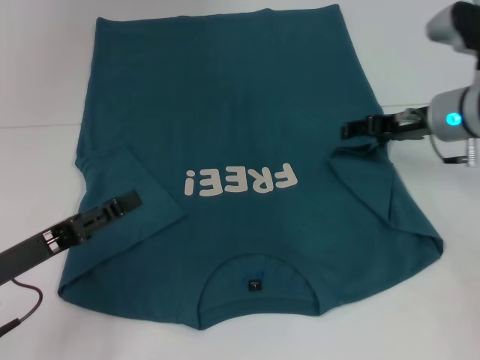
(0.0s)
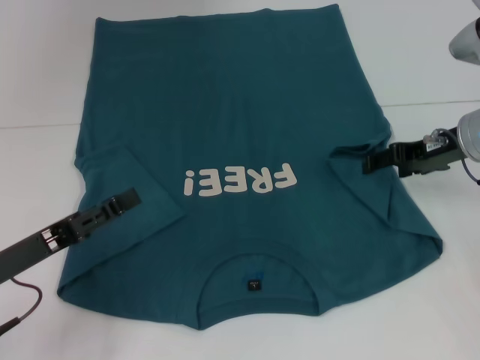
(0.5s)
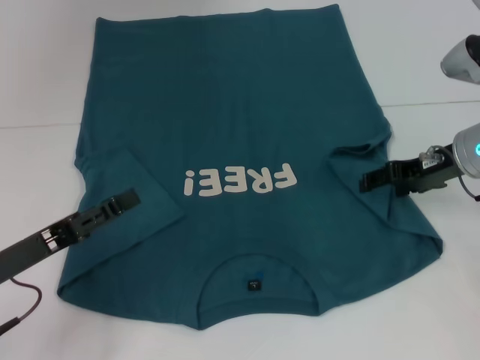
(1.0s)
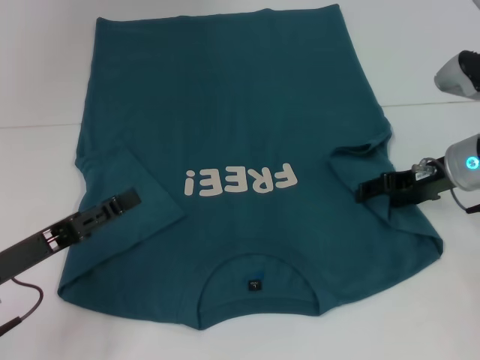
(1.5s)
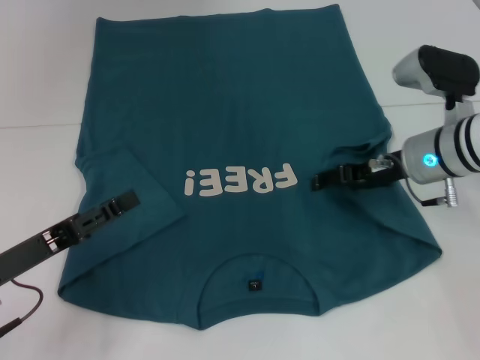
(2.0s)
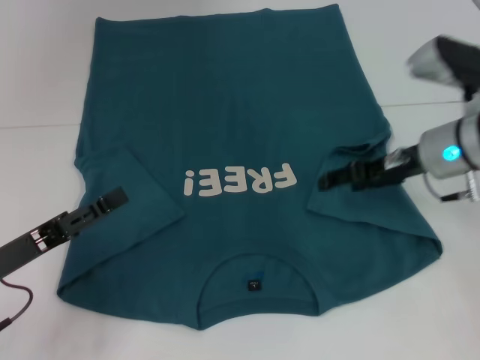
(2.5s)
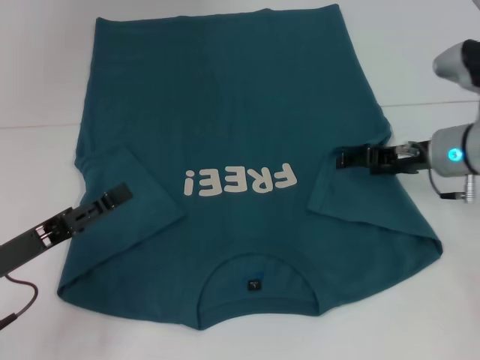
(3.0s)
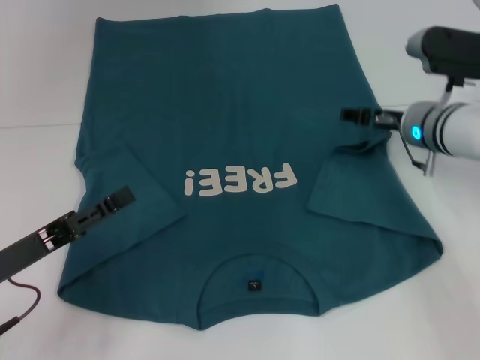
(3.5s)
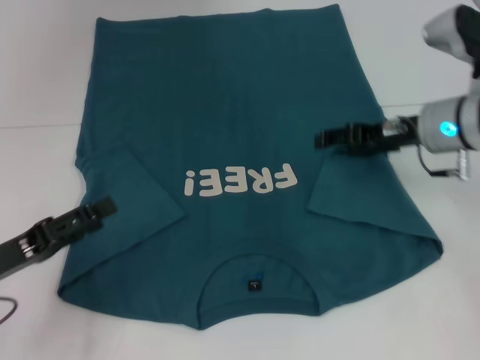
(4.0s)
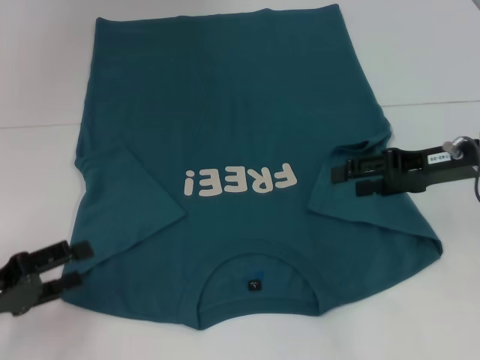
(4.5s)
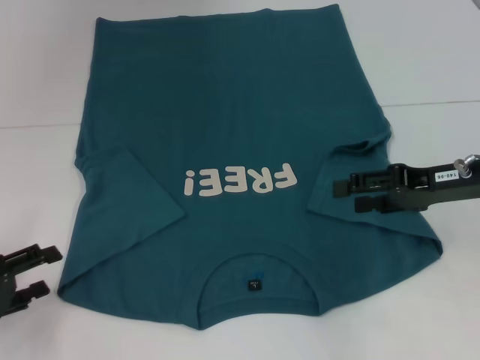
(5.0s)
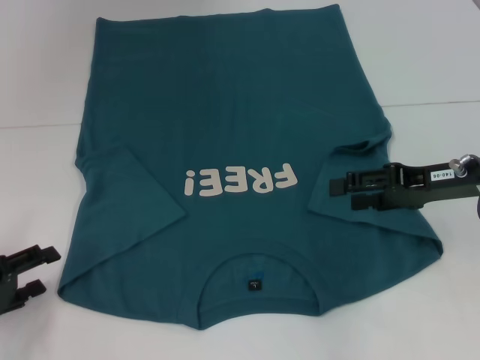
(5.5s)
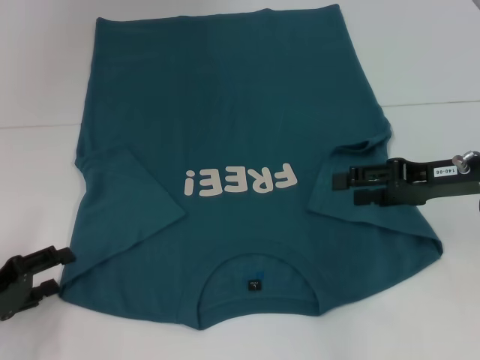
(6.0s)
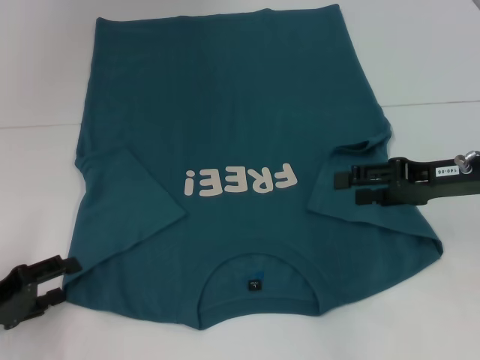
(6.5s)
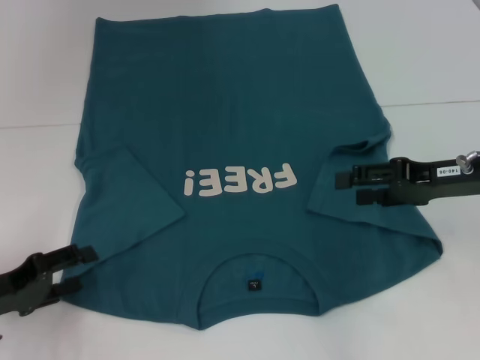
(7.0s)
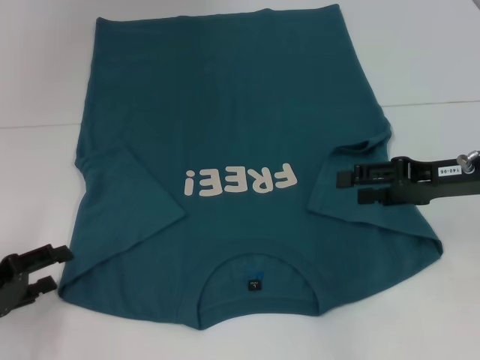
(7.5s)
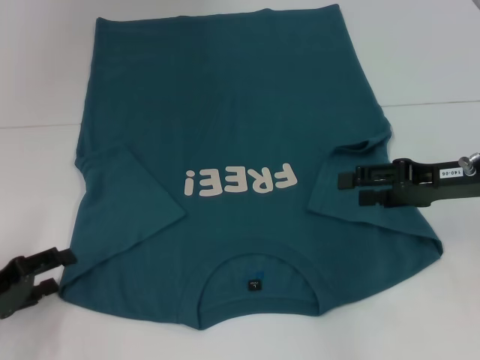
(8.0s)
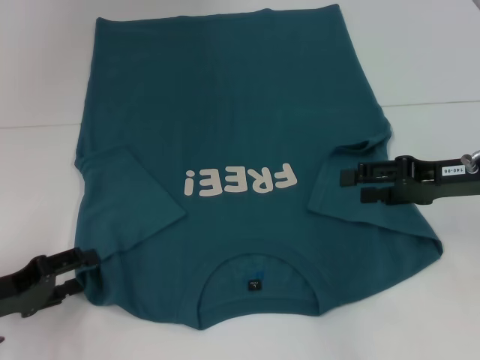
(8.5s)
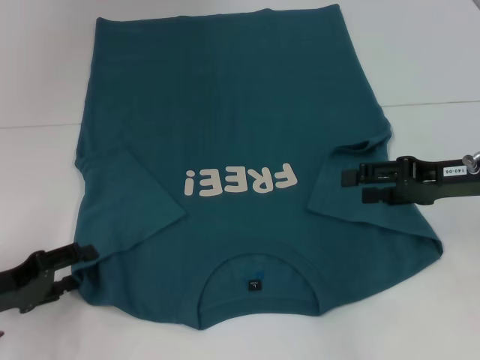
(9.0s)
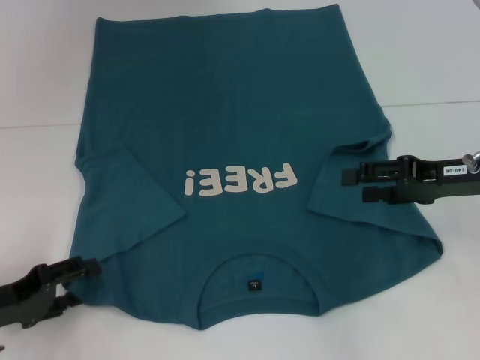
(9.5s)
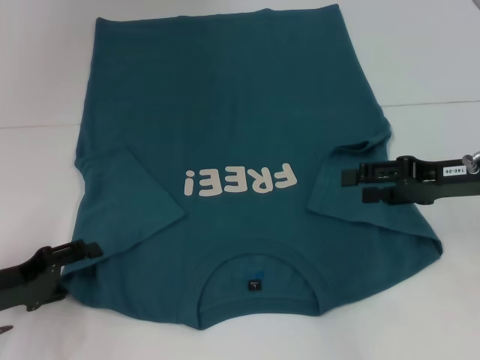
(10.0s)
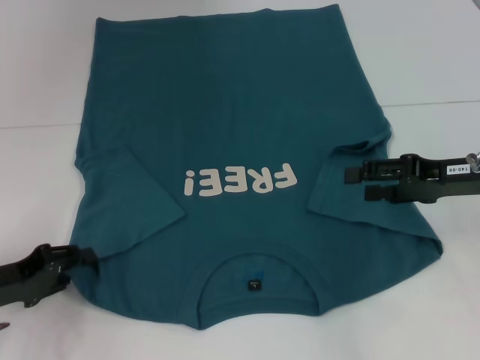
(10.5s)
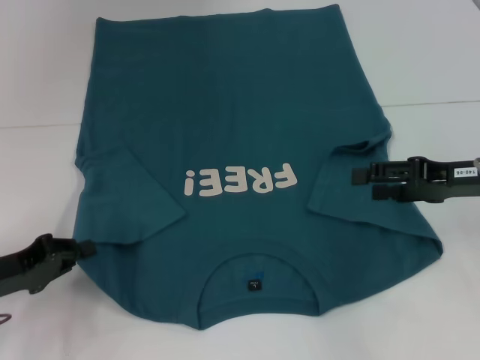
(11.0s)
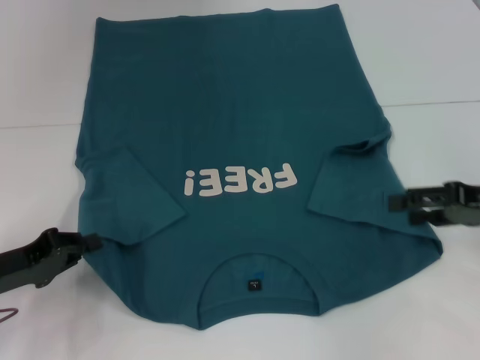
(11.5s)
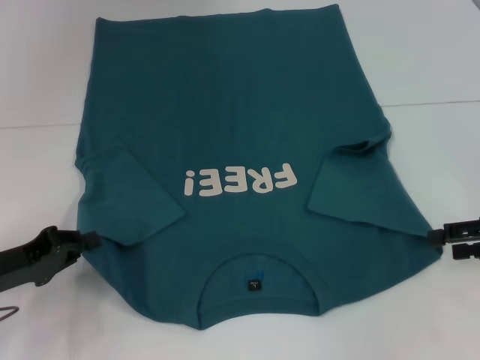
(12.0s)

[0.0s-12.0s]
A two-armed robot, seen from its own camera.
Step, 0.0s to 4.0s: Fold the bottom right sleeve to the right.
Step, 4.5s to 11.0s: Grab the bottom left corner with your left hand.
0.0s to 2.0s: There are only small adjustments of the grippers.
4.0s to 6.0s: The right gripper heads backward, covering some 5 cm. Meanwhile the left gripper ends up about 5 cm from where it was.
6.0s to 10.0s: There are only small adjustments of the grippers.
10.0s to 12.0s: The right gripper travels to the right by approximately 10 cm. The left gripper closes.

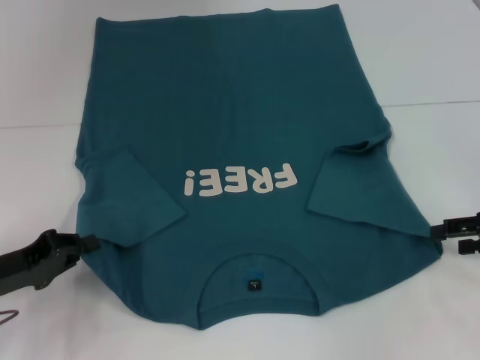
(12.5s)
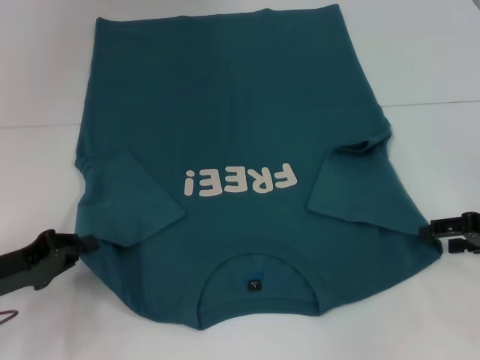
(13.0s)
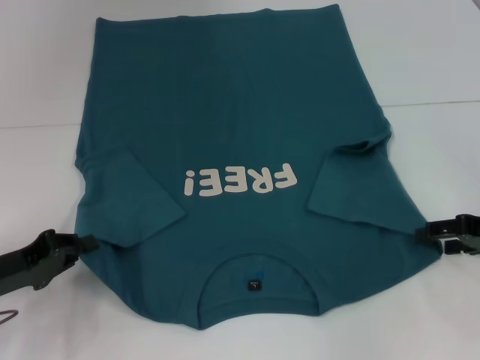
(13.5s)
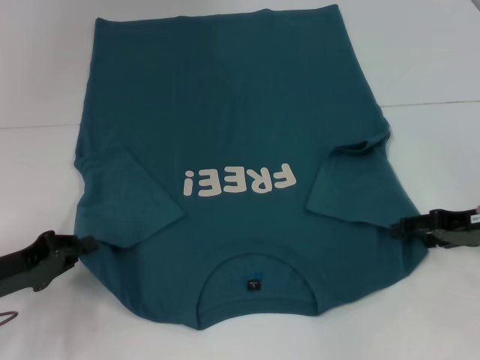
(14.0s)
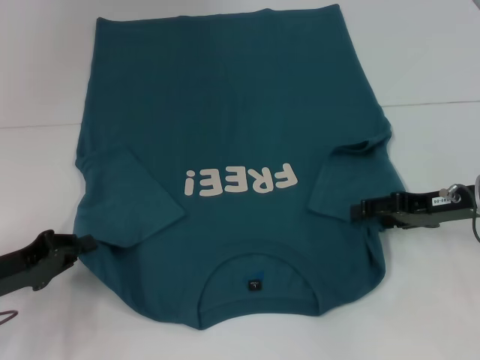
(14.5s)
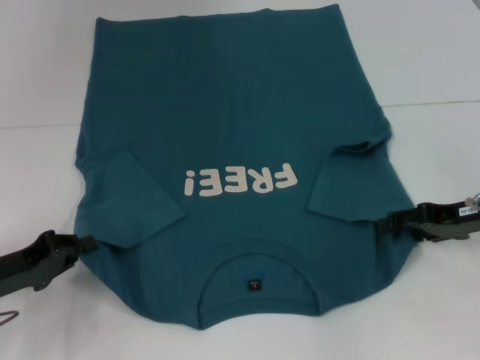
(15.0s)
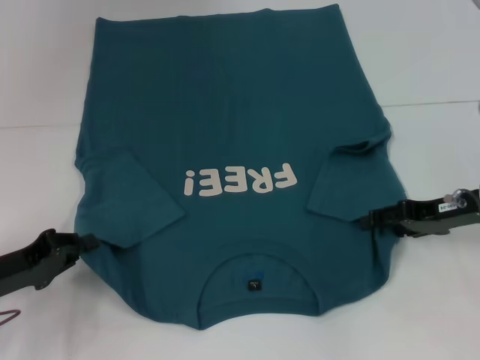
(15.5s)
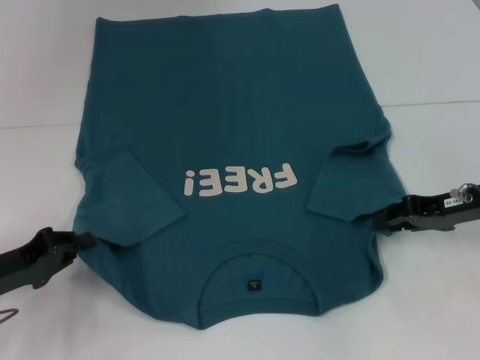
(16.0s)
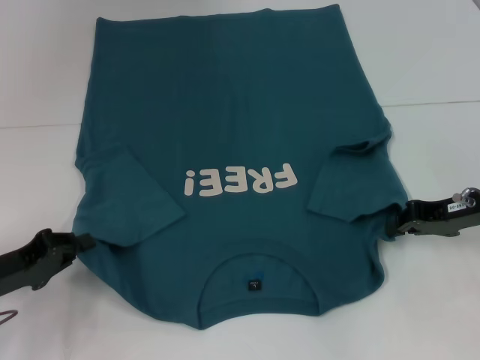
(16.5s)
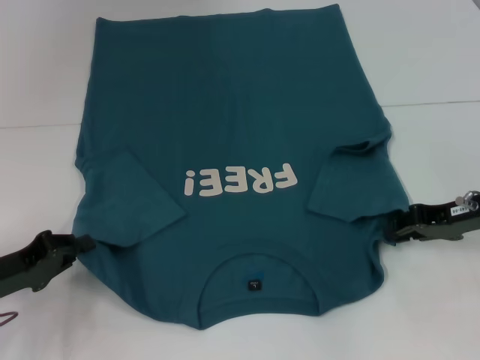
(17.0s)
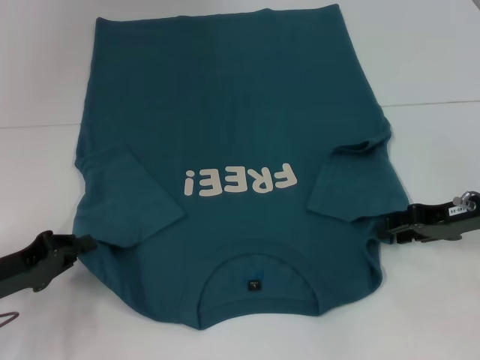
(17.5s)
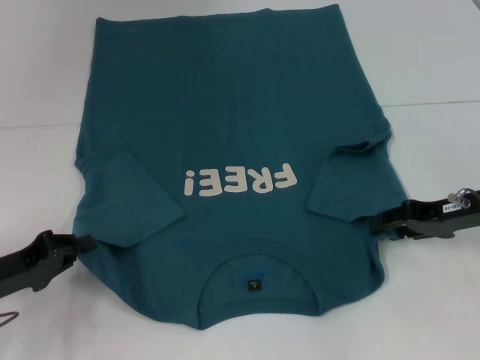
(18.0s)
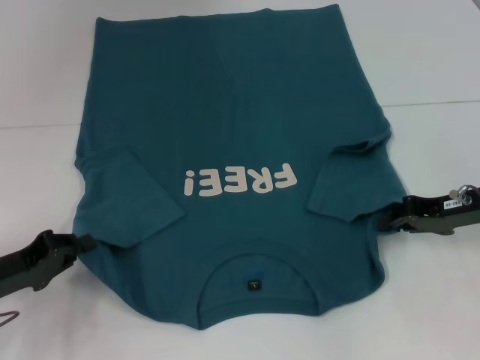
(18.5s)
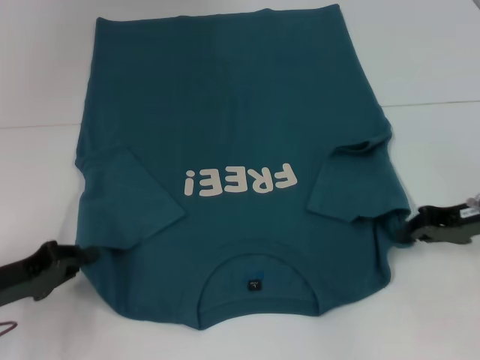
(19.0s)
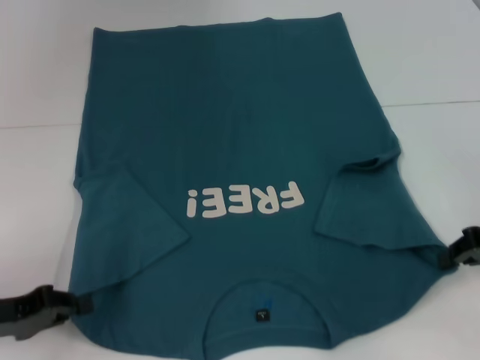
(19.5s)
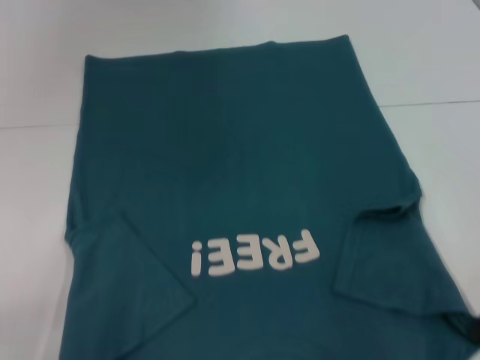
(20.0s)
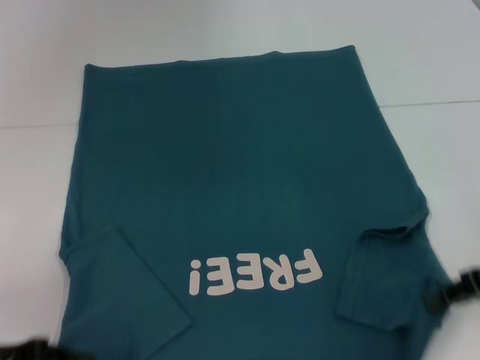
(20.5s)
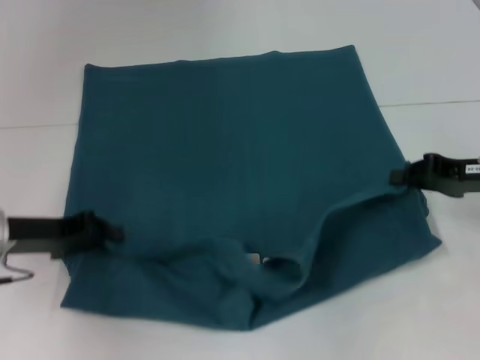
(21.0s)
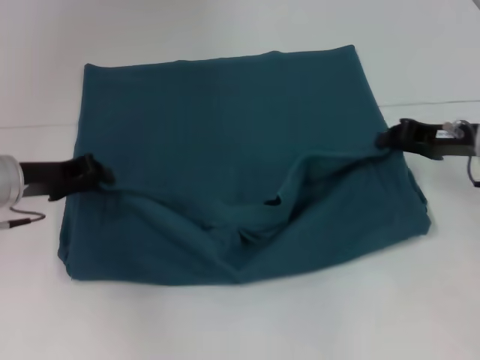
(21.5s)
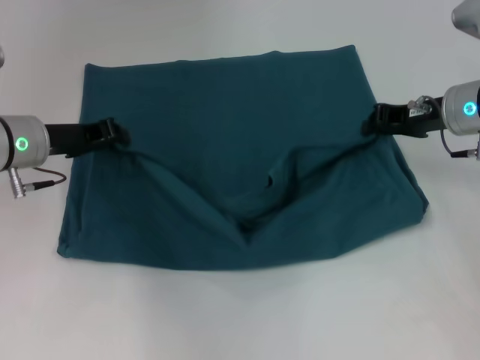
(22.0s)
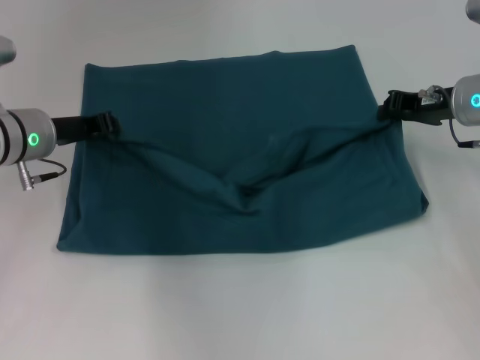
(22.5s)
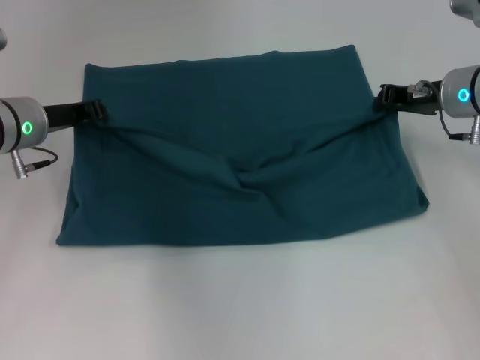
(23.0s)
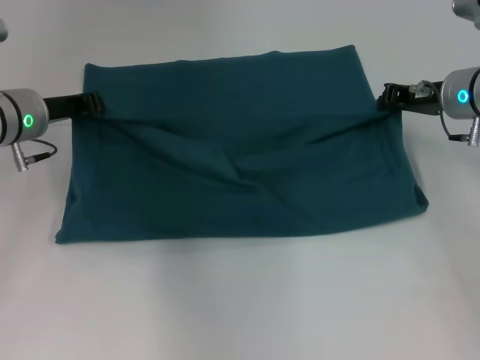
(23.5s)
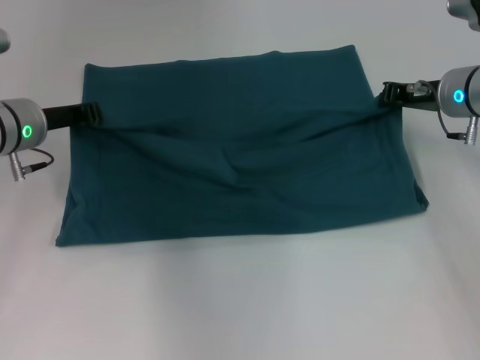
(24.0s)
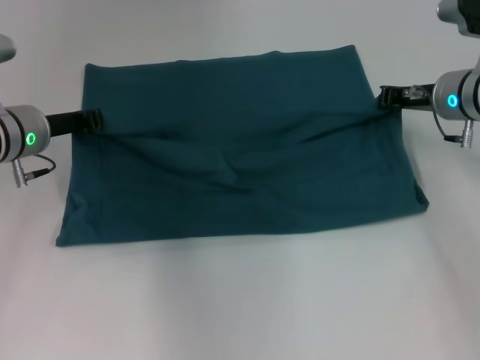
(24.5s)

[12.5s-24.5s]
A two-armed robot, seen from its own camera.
Step, 12.5s to 19.0s: Grab the bottom right corner with your right hand.
12.5s to 14.5s: The right gripper goes roughly 10 cm to the left.
14.5s to 16.5s: The right gripper closes.
16.5s to 18.5s: Both grippers stay about where they are.
18.5s to 20.5s: Both grippers travel together backward, roughly 5 cm. The right gripper closes.
20.5s to 22.5s: The right gripper goes approximately 15 cm forward and to the left, while the left gripper is displaced forward and to the right by roughly 20 cm.
22.5s to 24.5s: The grippers make only small movements.

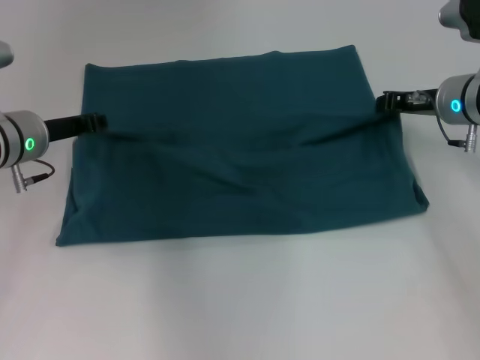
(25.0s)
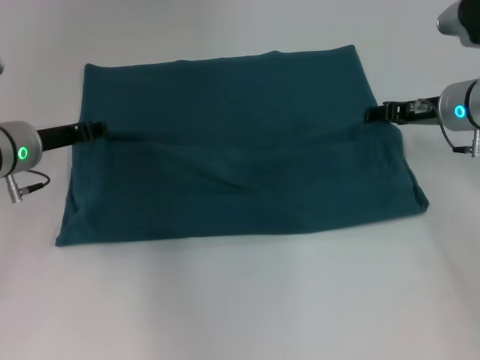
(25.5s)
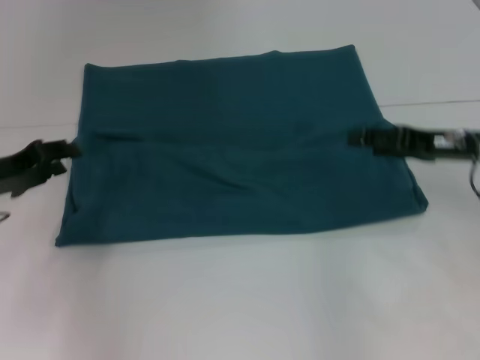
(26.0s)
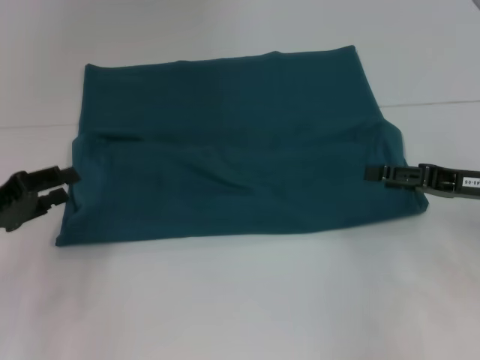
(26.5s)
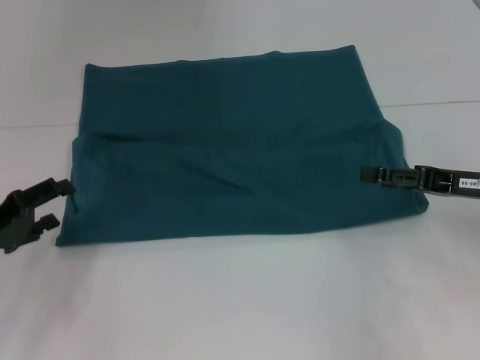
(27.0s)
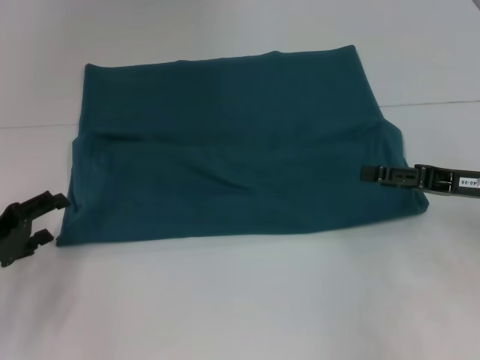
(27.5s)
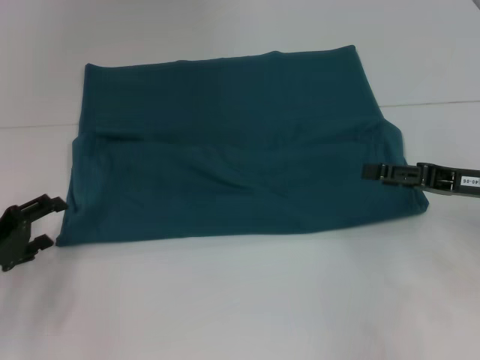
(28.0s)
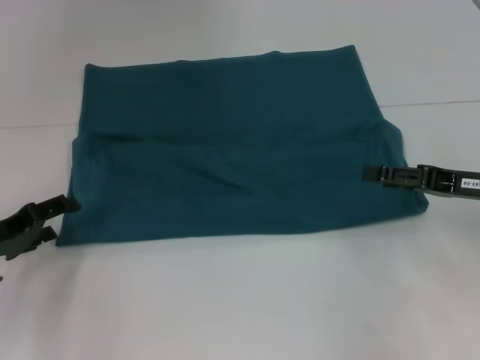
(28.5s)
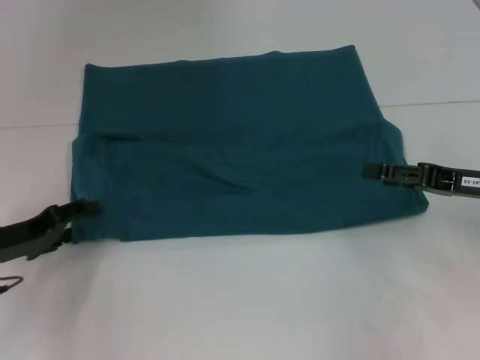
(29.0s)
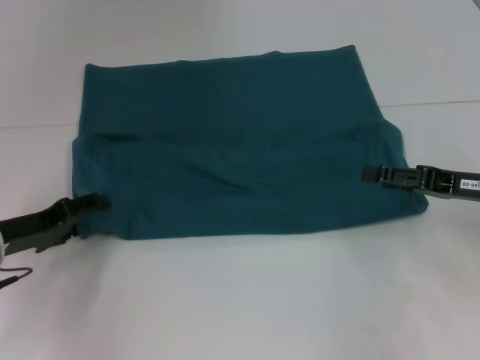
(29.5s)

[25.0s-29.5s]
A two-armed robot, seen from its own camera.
25.0s to 27.0s: The right gripper goes about 10 cm backward, and opens; the left gripper shifts approximately 15 cm backward and to the left, and opens its fingers.
27.0s to 29.5s: The grippers move only a little.
